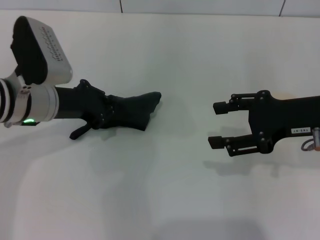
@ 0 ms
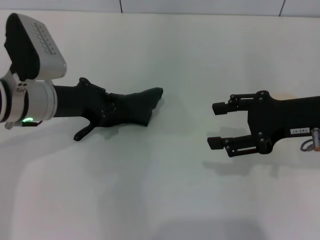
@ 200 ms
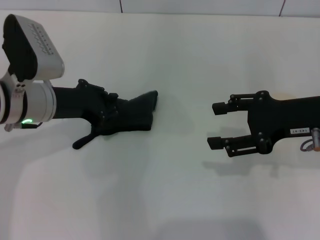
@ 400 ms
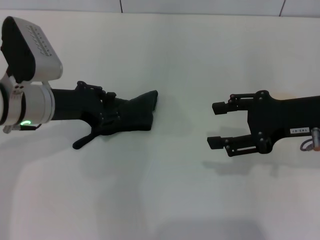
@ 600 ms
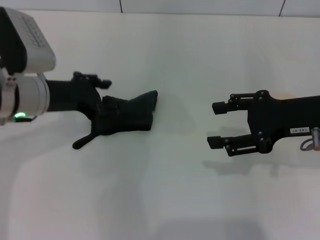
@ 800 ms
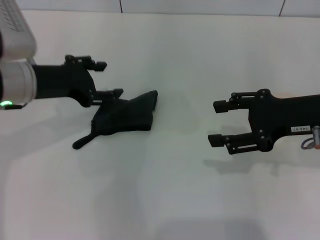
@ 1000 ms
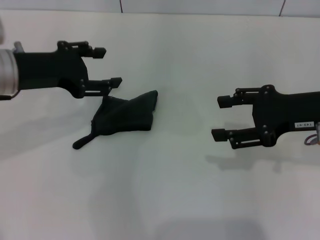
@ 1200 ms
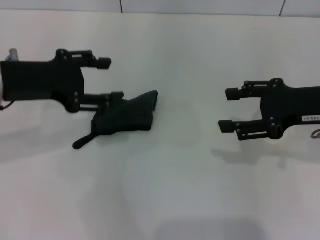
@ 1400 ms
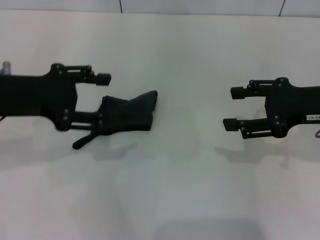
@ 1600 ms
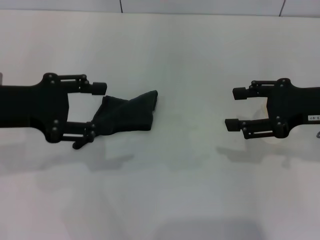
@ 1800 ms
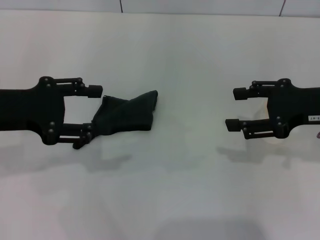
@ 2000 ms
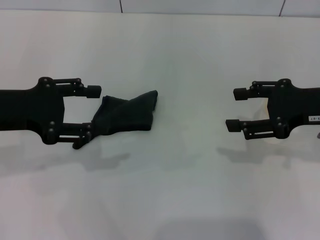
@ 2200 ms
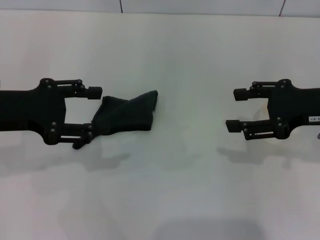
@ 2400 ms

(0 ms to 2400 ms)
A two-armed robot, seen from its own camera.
Step, 200 ms - 1000 ms: Place the rag on the table with the left gripper.
0 ms - 1200 ms: The left gripper travels upward by some 5 cm, and opens.
1200 ms - 2400 ms: The left gripper moves about 5 cm.

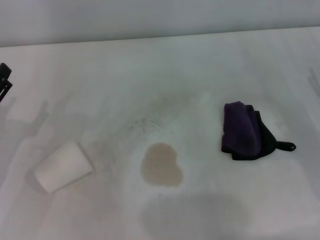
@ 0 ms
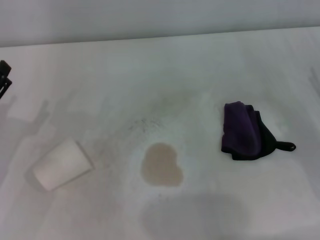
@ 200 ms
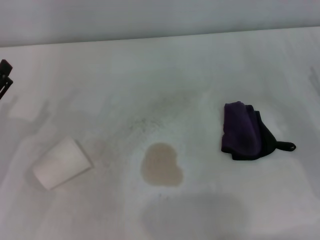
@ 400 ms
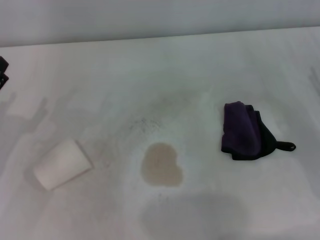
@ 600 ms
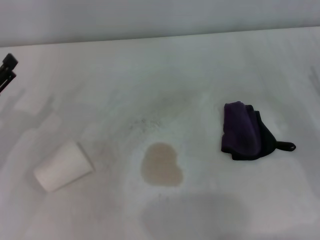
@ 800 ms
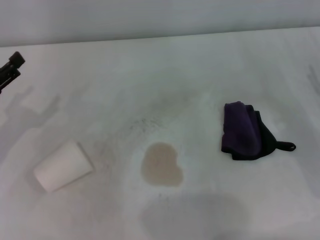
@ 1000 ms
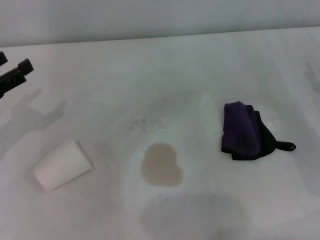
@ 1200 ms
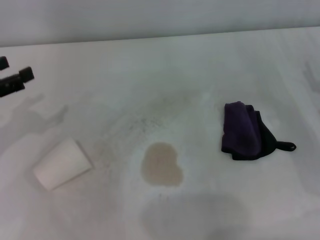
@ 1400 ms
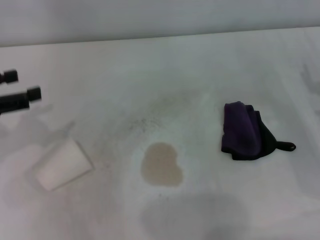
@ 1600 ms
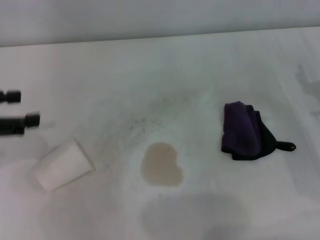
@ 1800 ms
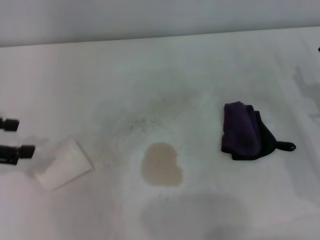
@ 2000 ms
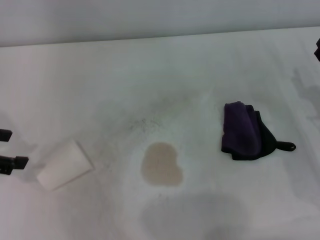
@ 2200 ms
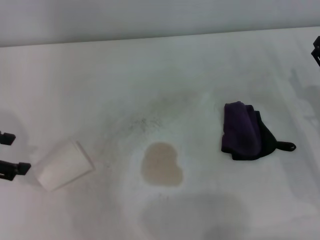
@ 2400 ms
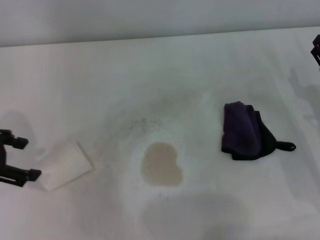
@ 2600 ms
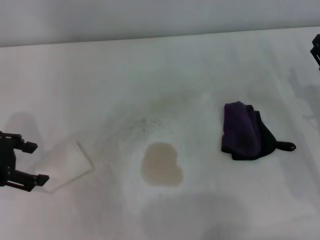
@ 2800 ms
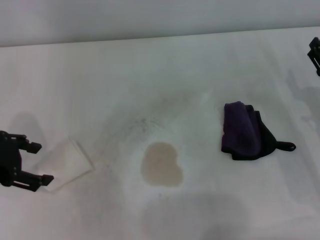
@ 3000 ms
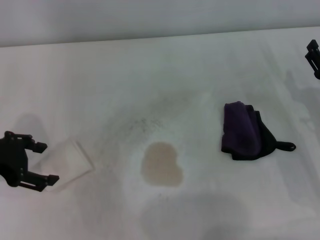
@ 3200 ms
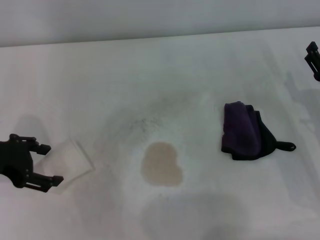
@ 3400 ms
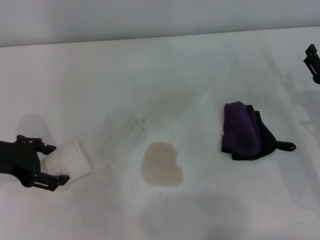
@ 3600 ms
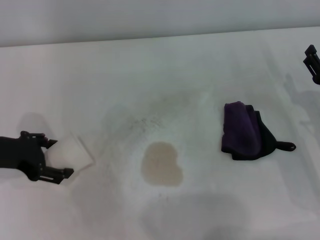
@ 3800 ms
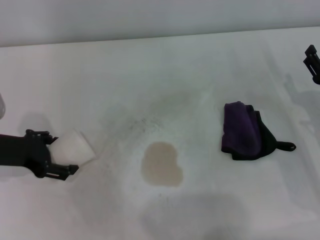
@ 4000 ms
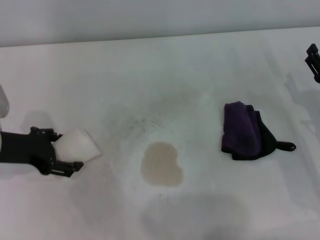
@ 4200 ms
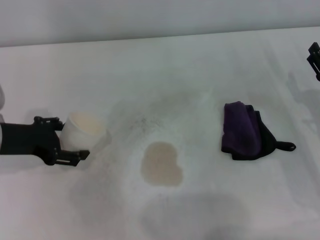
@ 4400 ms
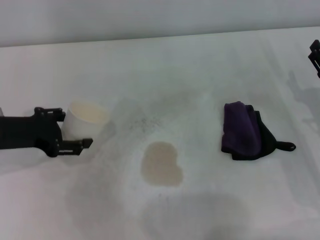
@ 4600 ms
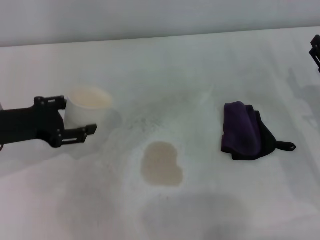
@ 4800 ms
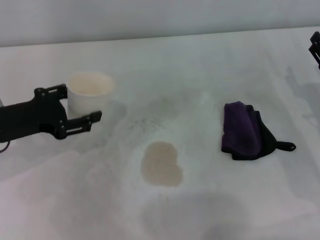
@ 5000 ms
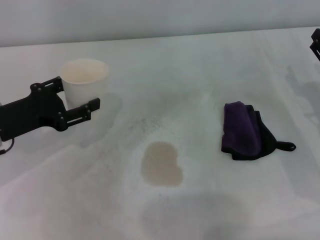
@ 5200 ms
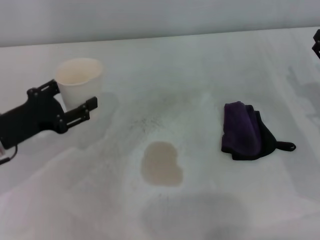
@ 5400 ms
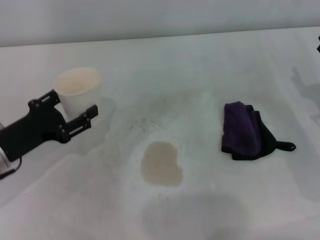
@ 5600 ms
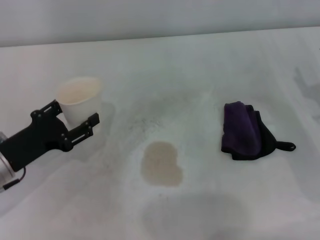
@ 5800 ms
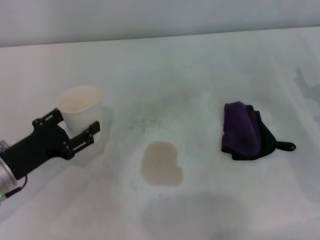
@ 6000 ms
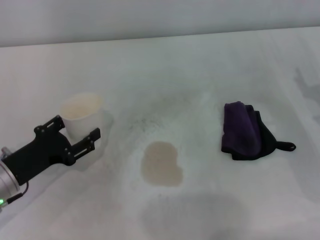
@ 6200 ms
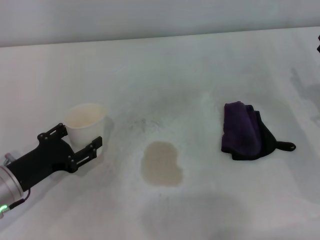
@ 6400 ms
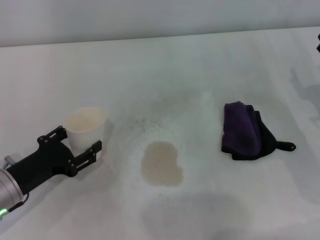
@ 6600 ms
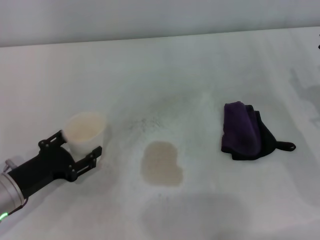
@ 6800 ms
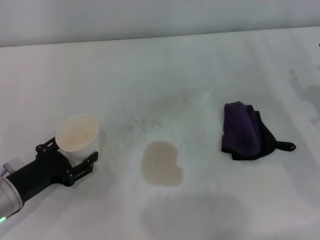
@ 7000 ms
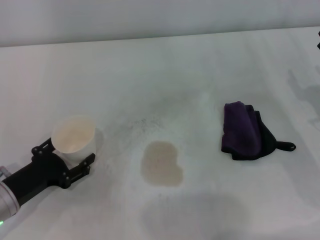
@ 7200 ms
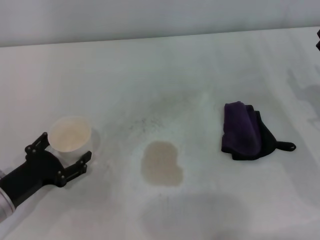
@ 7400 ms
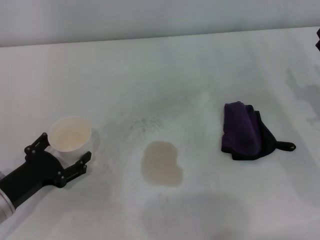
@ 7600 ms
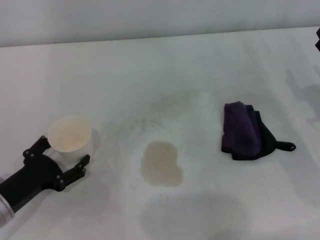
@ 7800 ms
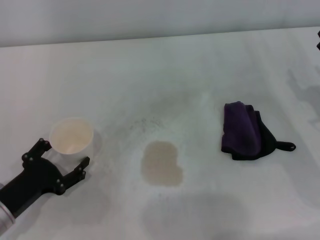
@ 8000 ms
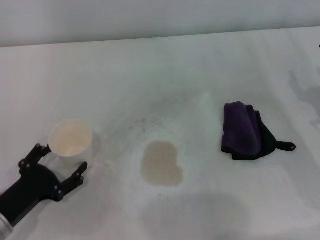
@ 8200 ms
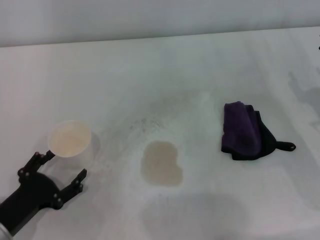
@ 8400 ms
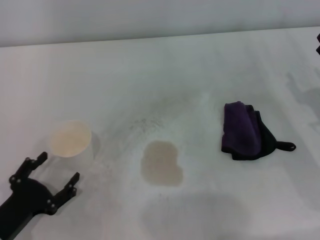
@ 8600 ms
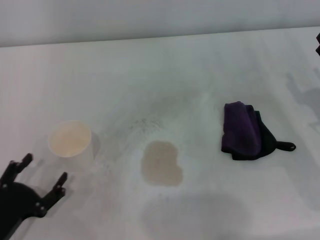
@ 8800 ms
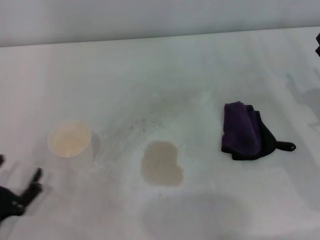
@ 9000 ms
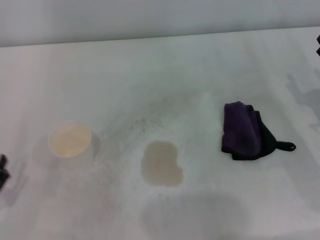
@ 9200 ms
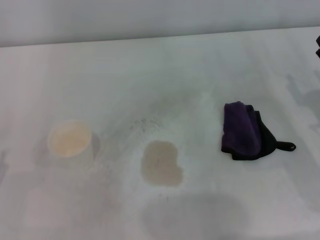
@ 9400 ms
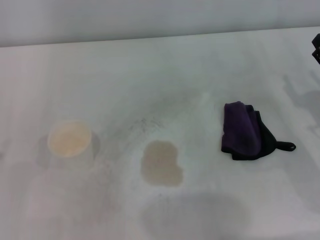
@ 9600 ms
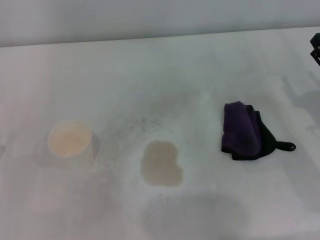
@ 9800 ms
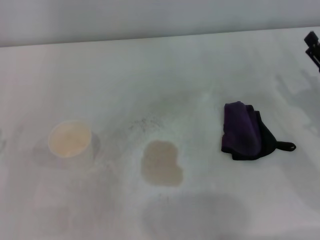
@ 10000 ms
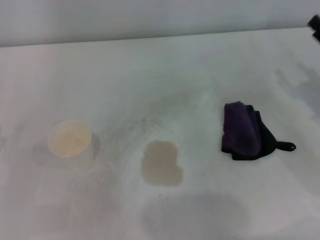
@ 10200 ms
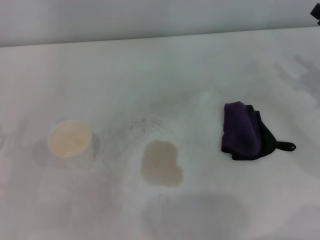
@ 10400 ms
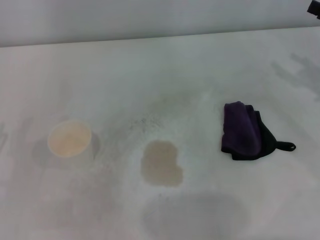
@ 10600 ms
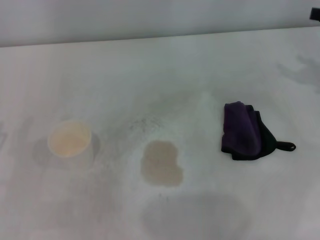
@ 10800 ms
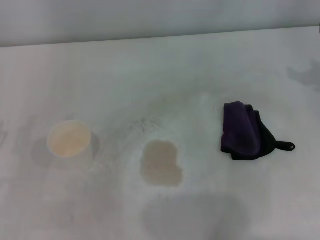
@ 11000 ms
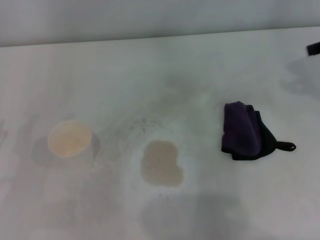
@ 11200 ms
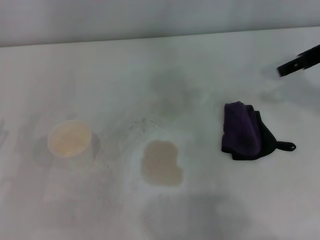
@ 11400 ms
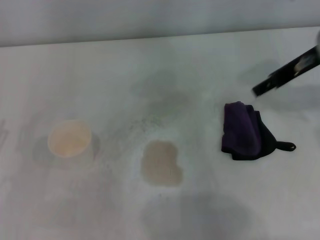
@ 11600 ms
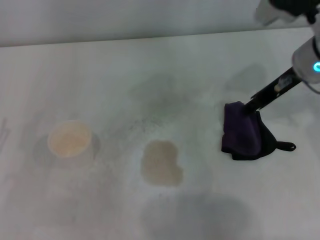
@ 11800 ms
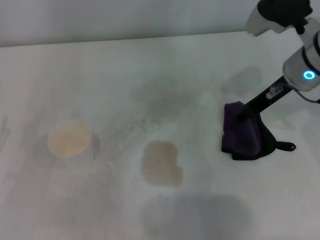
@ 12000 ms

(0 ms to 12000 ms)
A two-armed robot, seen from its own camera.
Step, 0 ms - 4000 ms: Grasp the paper cup with the left gripper.
Step, 4200 ms - 7600 ms: Stand the paper cup upright with the left gripper.
0 ms - 1600 ms: The left gripper shifts roughly 10 cm upward.
3000 ms - 4400 ms: The left gripper ends up some 5 cm from where it was.
4400 ms - 6000 ms: The left gripper heads downward and backward, covering approximately 10 cm, and closes.
6000 ms - 7600 ms: The left gripper opens its fingers.
7600 ms - 9000 ms: The left gripper travels backward by about 10 cm.
9000 ms - 10400 ms: The left gripper shifts roughly 5 cm forward.
10400 ms - 12000 ms: The right gripper travels to the left and forward by approximately 15 cm.

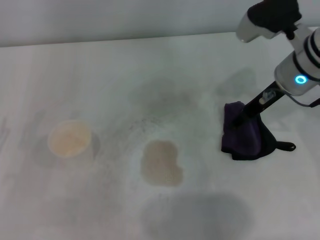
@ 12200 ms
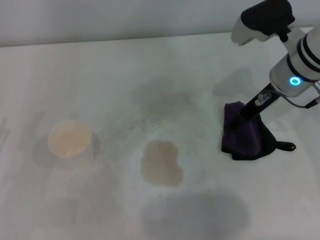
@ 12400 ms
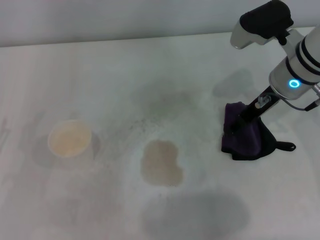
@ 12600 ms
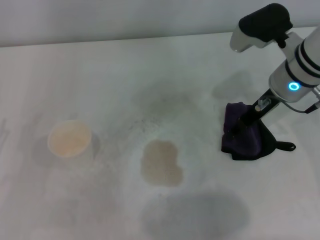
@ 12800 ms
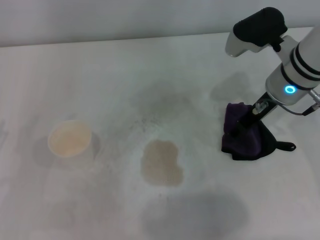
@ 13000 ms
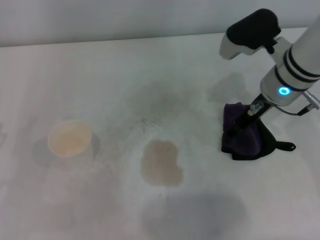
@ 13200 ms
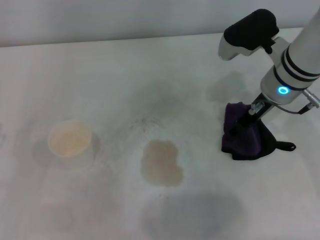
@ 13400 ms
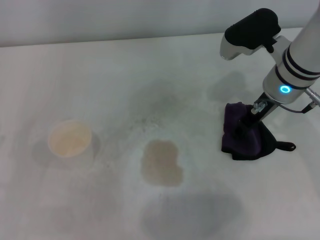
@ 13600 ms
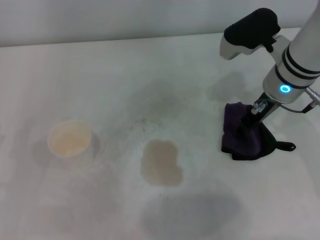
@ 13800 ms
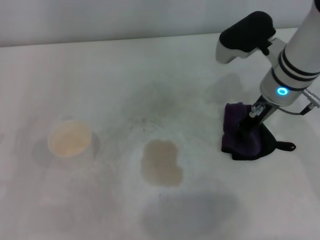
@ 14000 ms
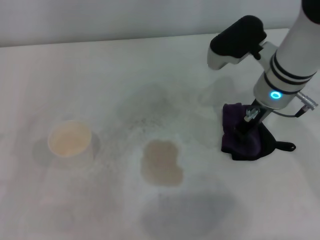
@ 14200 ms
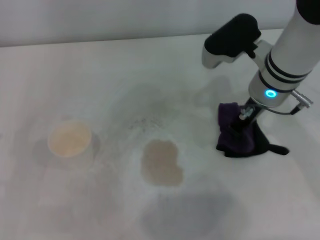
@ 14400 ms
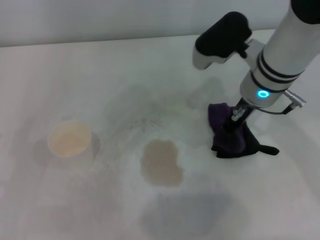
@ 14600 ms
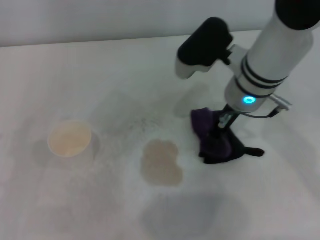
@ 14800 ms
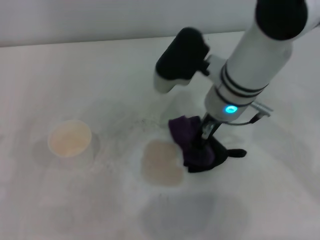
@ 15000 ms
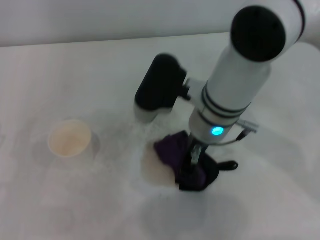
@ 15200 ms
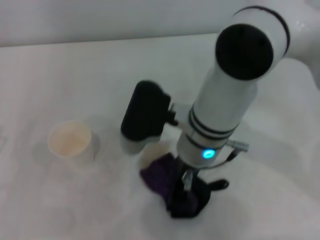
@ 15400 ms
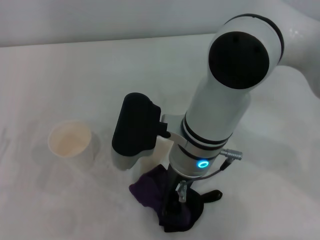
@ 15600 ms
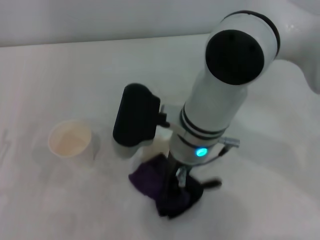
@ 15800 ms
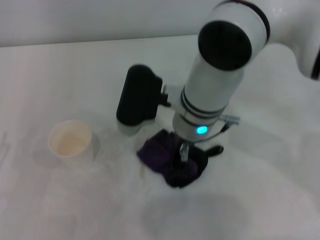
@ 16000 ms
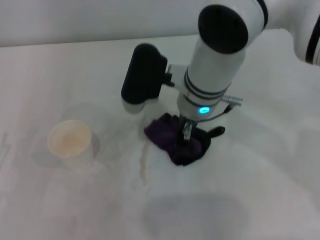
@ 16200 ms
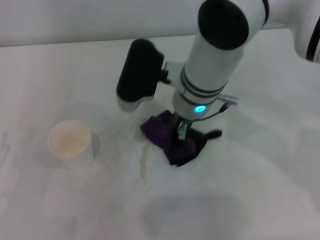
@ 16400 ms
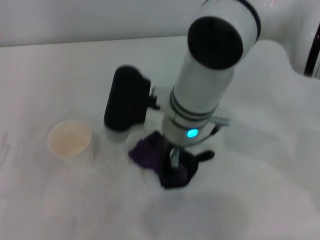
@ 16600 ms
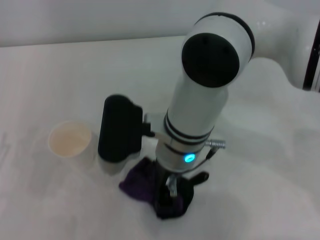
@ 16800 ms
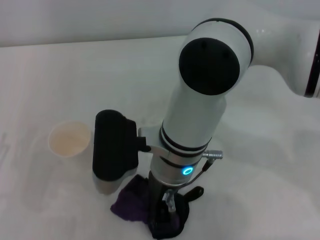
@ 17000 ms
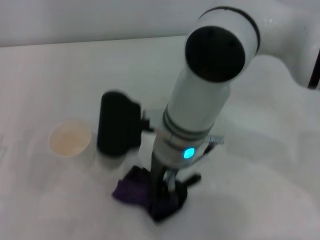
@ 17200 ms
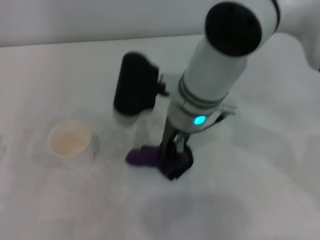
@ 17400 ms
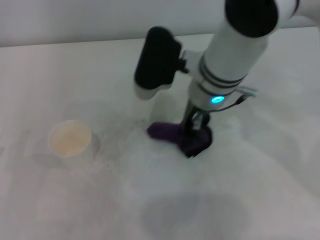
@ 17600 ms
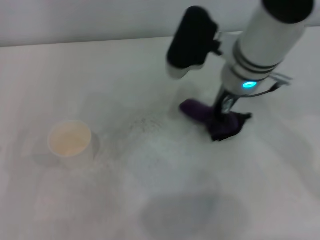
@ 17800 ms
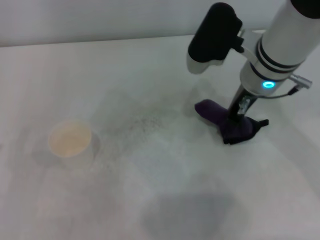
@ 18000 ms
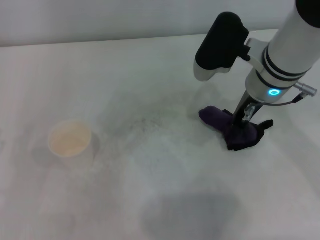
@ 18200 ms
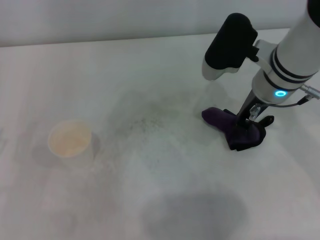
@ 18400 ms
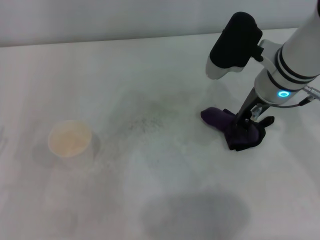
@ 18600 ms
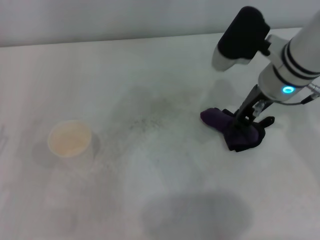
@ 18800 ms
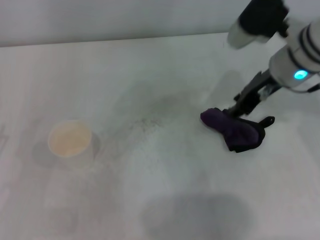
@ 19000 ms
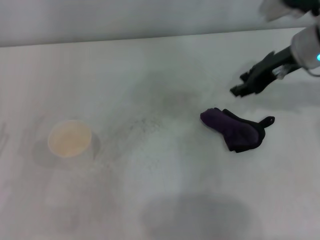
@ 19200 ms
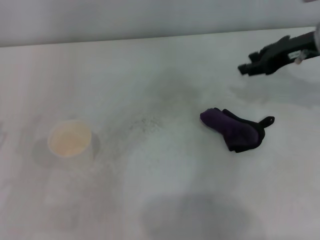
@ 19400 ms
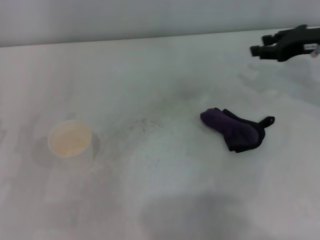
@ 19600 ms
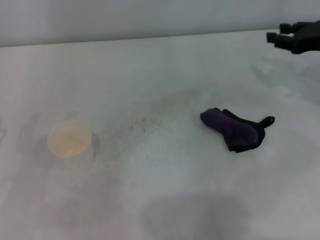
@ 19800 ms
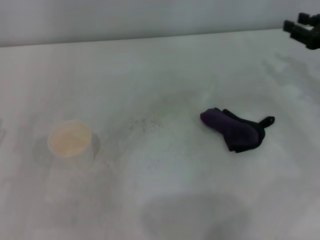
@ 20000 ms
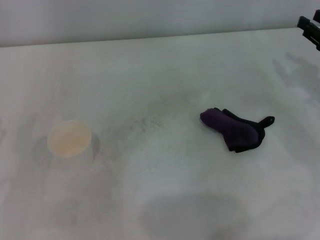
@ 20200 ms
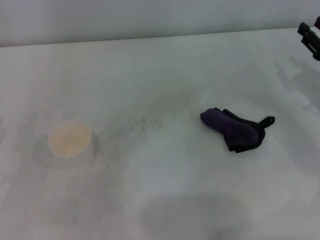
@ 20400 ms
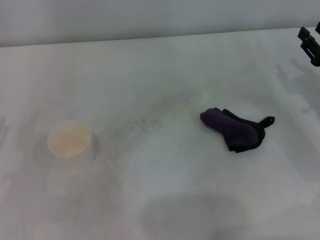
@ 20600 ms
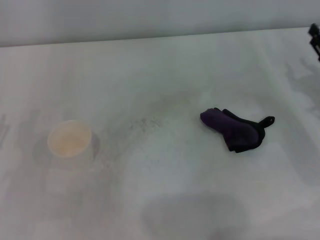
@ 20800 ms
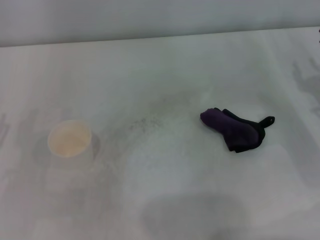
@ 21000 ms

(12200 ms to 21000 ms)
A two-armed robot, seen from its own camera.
Step, 12200 ms - 14400 ms: Grasp the rag with the right gripper.
Step, 14600 ms - 17800 ms: Wipe the stains off the table with the right gripper.
Step, 18000 ms - 18600 ms: Place the rag on the table with the right gripper.
12200 ms - 13600 ms: The grippers make only small movements.
13600 ms - 15200 ms: The right gripper goes approximately 10 cm to the left, and closes up.
16600 ms - 18000 ms: The right gripper is displaced to the right by roughly 10 cm.
18000 ms - 19600 ms: The right gripper moves to the right, approximately 15 cm, and opens.
19600 ms - 21000 ms: The right gripper travels downward and backward by about 15 cm.
